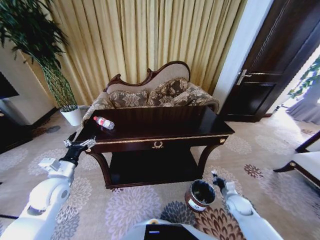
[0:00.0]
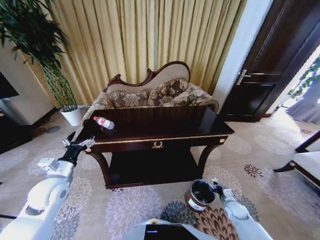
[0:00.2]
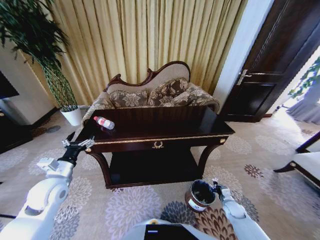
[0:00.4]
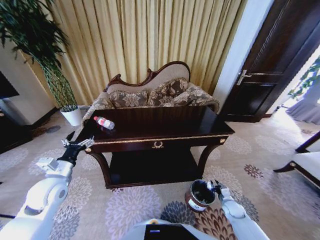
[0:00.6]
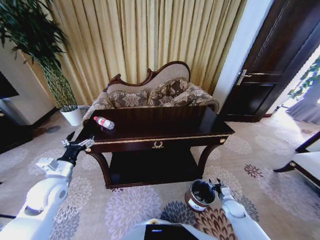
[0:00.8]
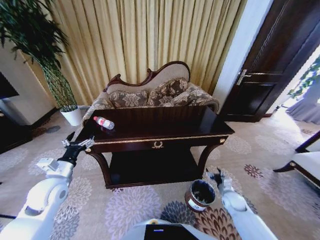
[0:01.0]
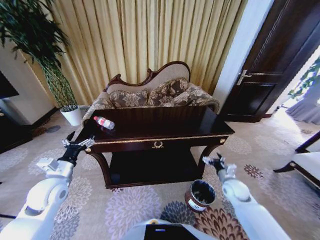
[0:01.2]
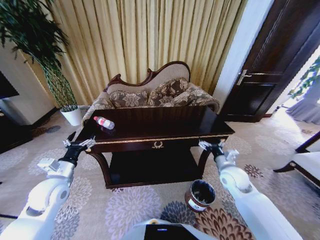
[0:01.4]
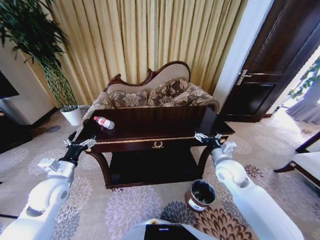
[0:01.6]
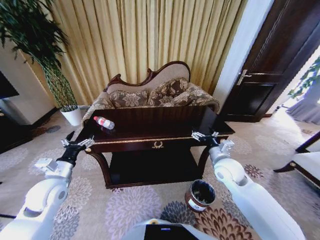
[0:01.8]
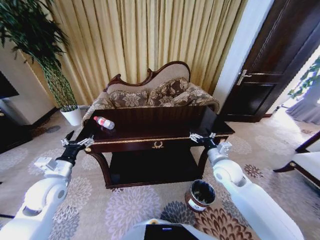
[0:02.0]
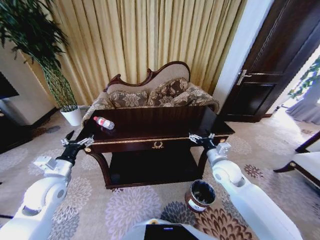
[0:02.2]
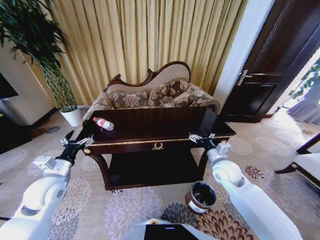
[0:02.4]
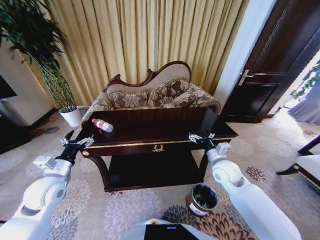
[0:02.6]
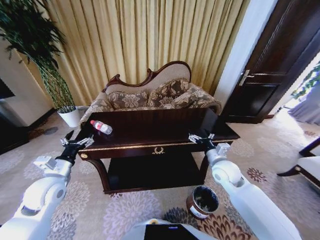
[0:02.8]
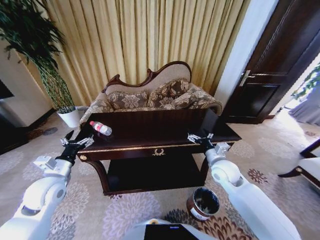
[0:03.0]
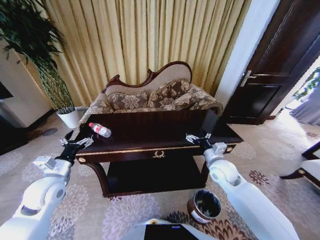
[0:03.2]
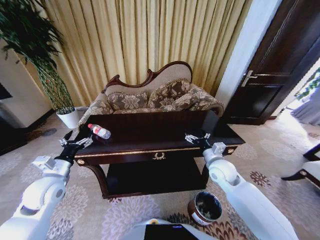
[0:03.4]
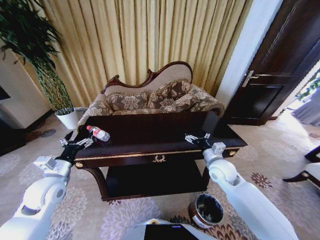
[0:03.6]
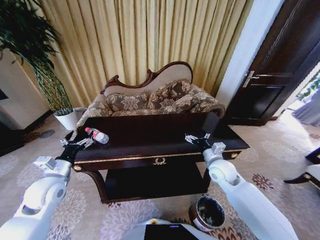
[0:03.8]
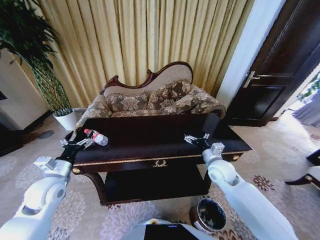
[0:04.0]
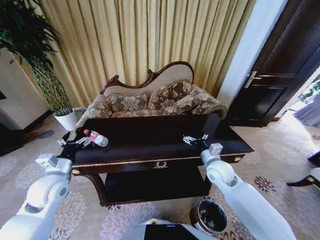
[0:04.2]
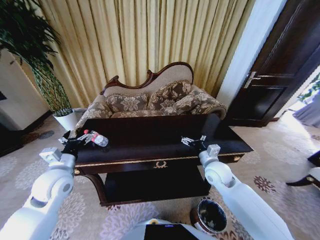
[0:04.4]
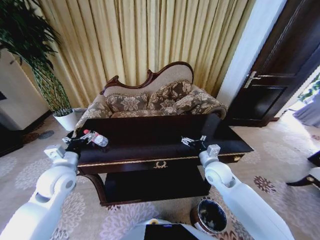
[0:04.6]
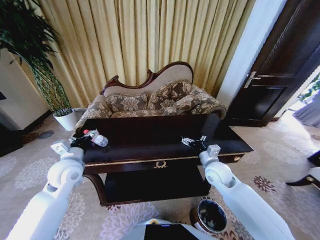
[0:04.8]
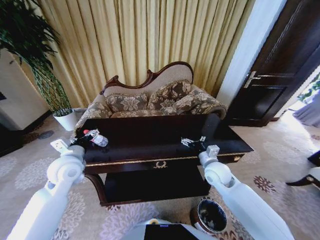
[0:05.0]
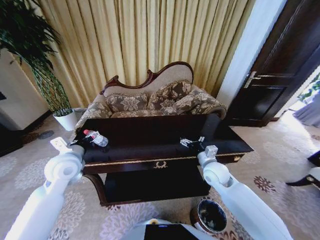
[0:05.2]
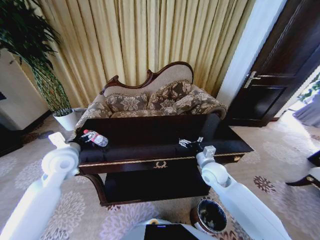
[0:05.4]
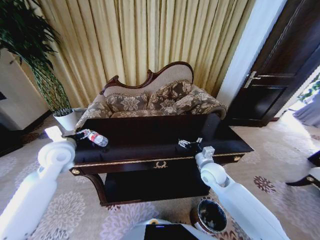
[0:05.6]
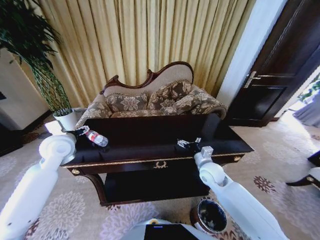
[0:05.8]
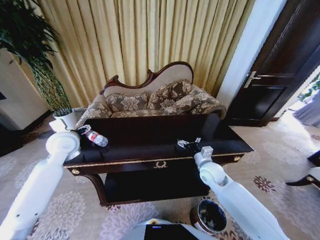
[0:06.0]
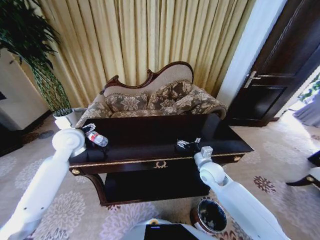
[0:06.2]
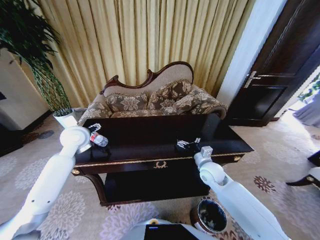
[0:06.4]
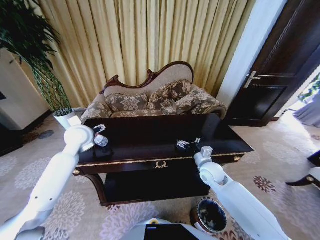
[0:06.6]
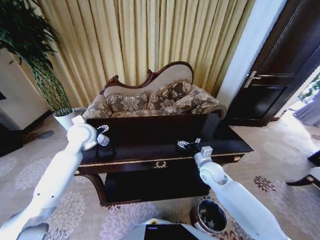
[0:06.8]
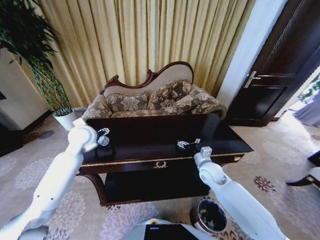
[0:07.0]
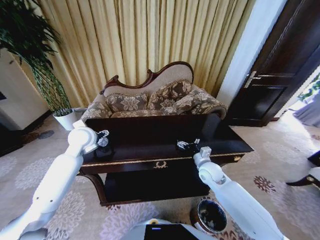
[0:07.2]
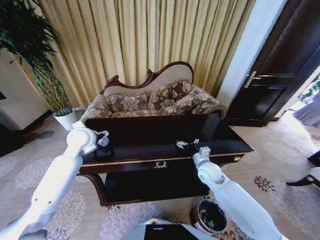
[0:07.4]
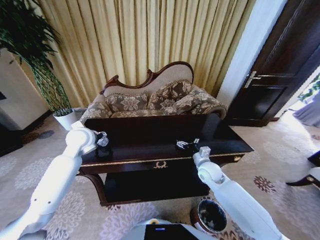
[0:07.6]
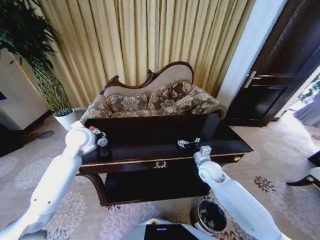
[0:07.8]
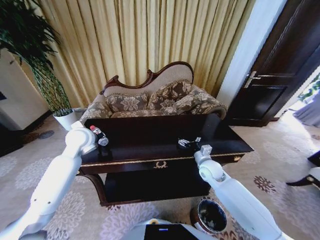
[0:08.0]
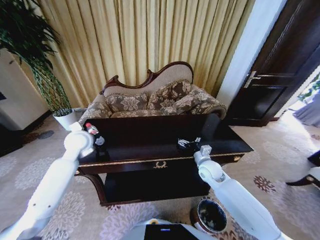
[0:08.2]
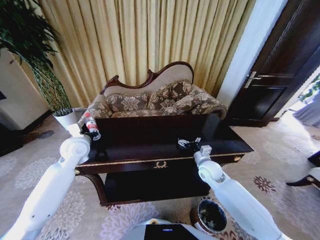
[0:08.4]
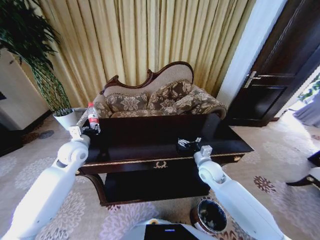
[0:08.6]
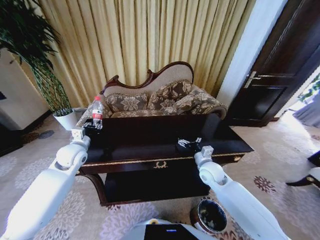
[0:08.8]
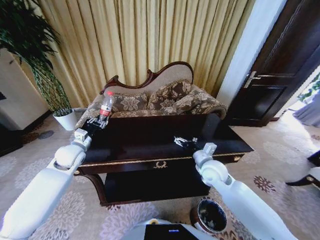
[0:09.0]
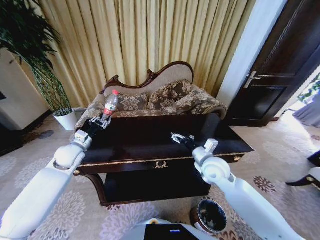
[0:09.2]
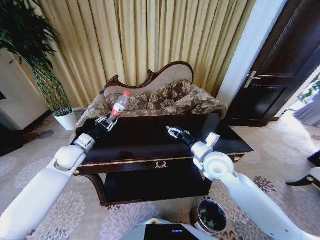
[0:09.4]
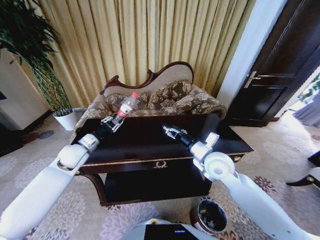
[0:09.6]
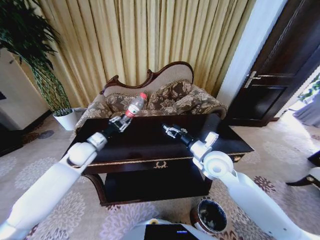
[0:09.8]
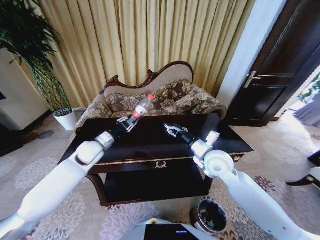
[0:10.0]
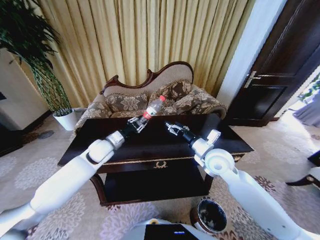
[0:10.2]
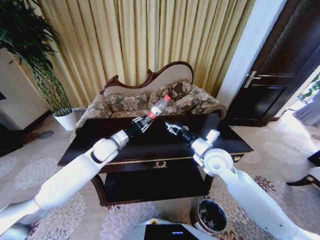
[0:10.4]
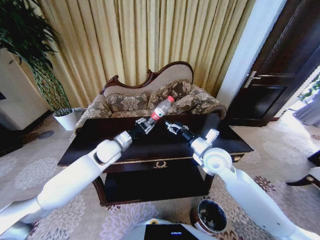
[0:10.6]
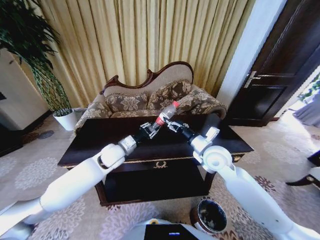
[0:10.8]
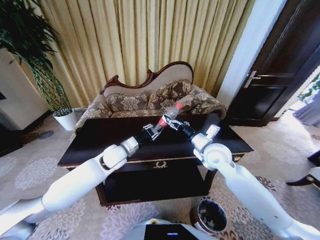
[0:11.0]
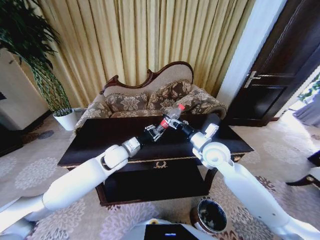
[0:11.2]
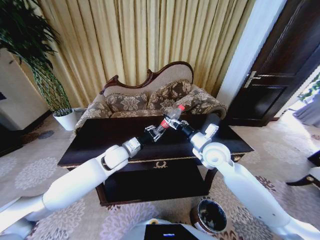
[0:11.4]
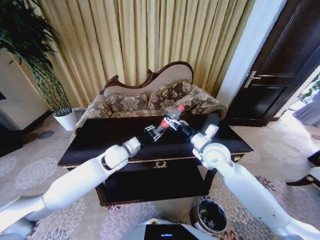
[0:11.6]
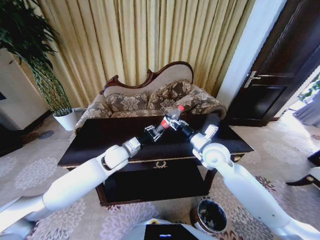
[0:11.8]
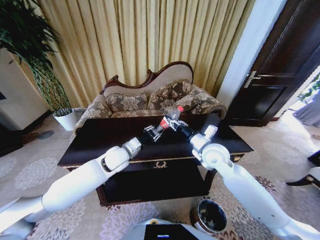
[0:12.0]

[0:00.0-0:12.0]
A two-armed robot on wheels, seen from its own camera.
Task of the whole recording: Move to the front of the table and place the trash on the table into the trash bin.
0:00.0 to 0:01.6: The right gripper travels upward and to the left by some 30 cm, and opens.
0:04.4 to 0:06.0: The left gripper shifts some 15 cm forward and upward.
0:06.0 to 0:07.6: The left gripper ends up some 5 cm from where it was.
0:07.6 to 0:09.0: The left gripper travels downward and to the left by approximately 10 cm, and closes; the right gripper travels upward by roughly 5 cm.
0:09.0 to 0:10.4: The right gripper heads upward, covering approximately 5 cm, while the left gripper travels to the right by approximately 15 cm.
0:10.4 to 0:12.0: The left gripper moves to the right, roughly 5 cm. Meanwhile the right gripper closes up.

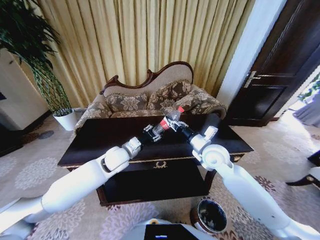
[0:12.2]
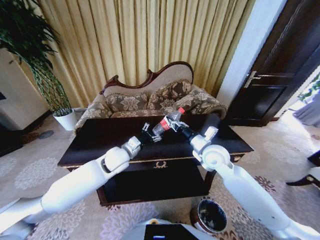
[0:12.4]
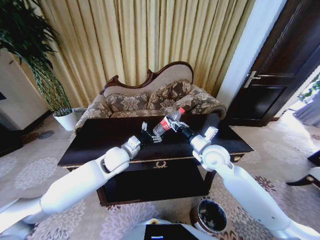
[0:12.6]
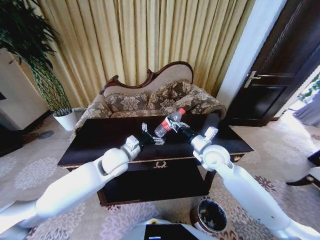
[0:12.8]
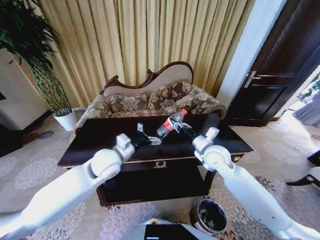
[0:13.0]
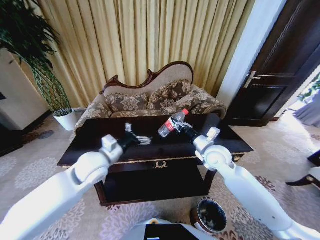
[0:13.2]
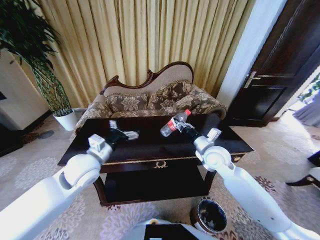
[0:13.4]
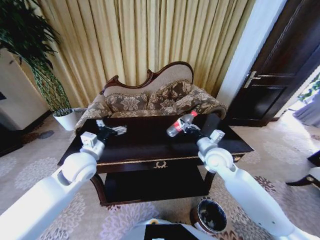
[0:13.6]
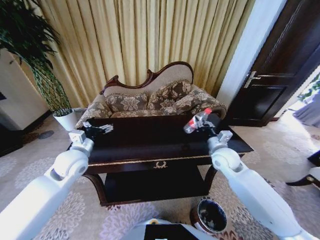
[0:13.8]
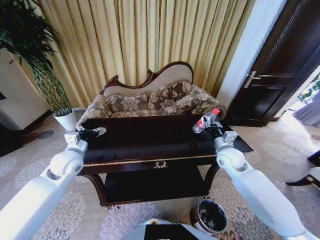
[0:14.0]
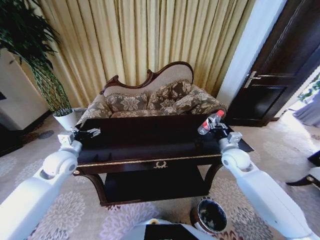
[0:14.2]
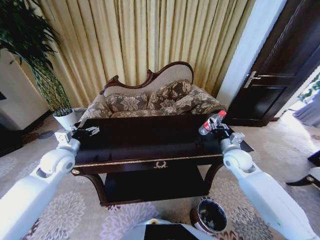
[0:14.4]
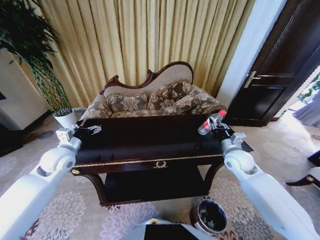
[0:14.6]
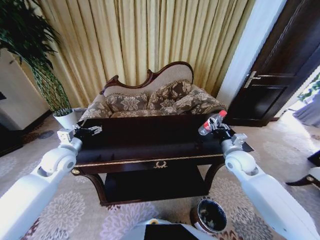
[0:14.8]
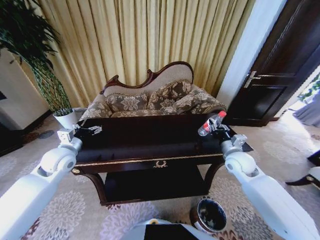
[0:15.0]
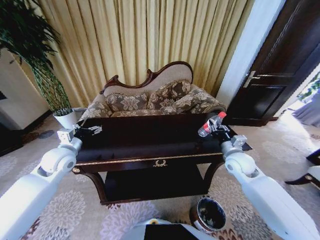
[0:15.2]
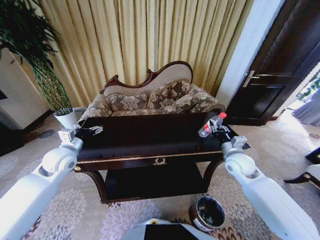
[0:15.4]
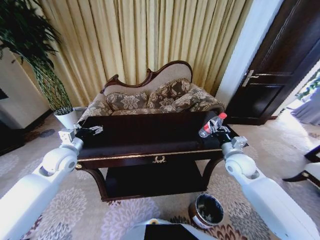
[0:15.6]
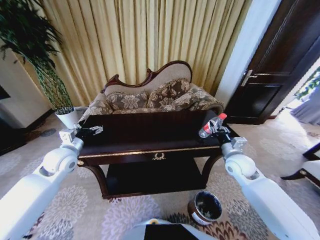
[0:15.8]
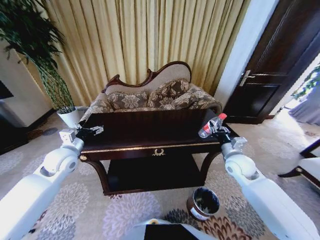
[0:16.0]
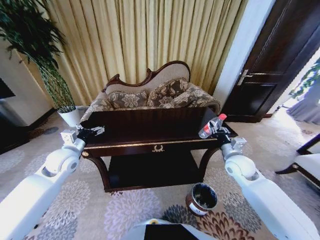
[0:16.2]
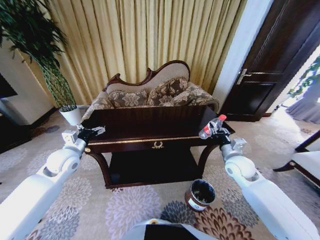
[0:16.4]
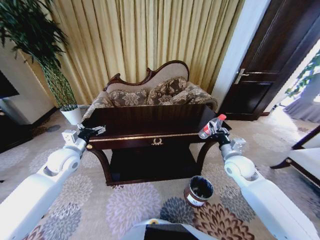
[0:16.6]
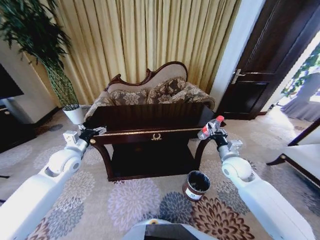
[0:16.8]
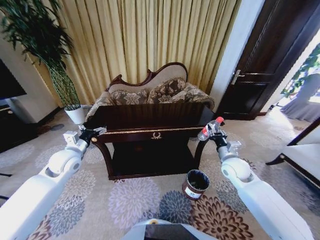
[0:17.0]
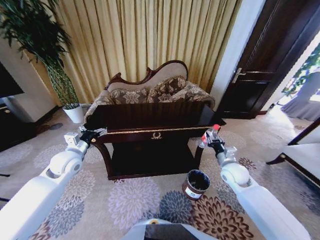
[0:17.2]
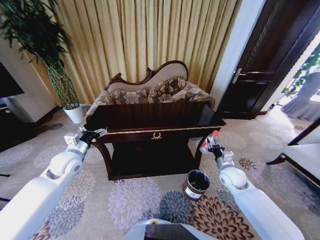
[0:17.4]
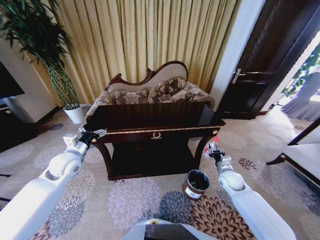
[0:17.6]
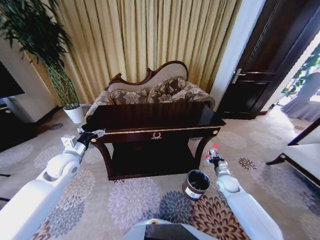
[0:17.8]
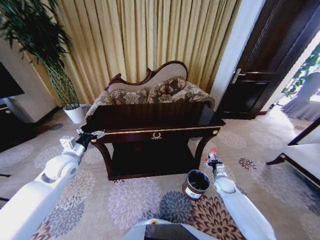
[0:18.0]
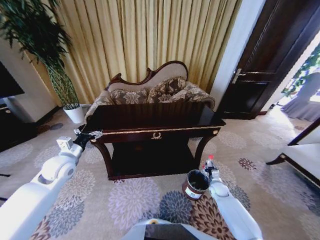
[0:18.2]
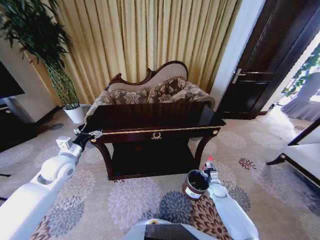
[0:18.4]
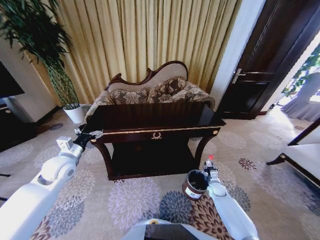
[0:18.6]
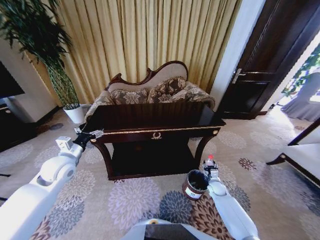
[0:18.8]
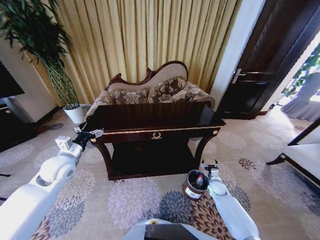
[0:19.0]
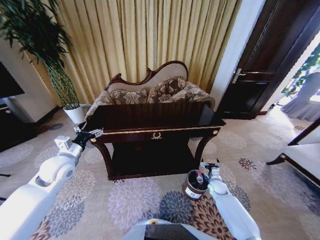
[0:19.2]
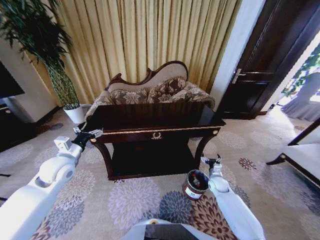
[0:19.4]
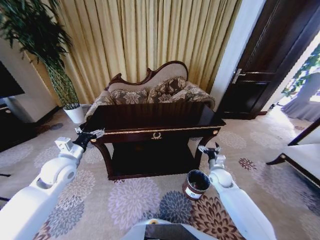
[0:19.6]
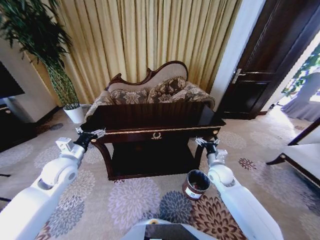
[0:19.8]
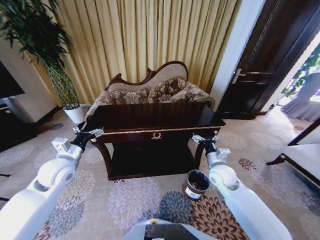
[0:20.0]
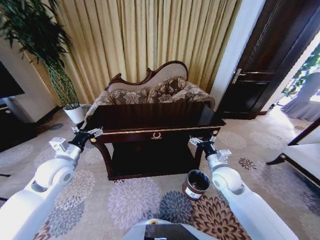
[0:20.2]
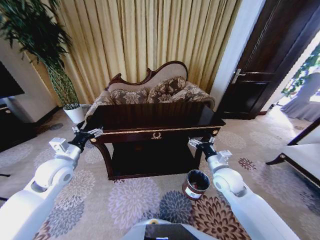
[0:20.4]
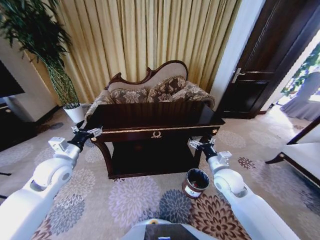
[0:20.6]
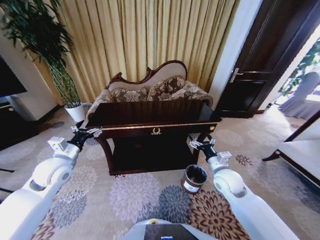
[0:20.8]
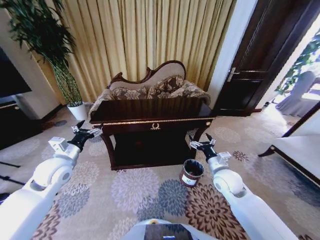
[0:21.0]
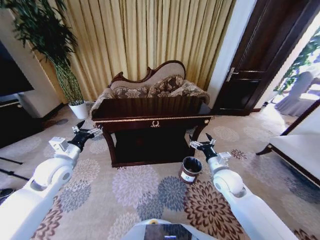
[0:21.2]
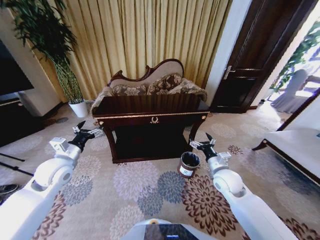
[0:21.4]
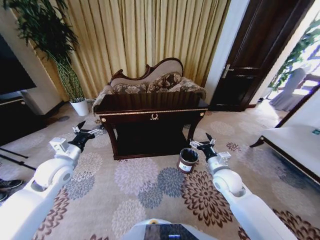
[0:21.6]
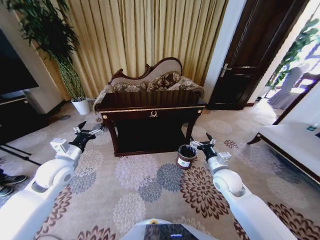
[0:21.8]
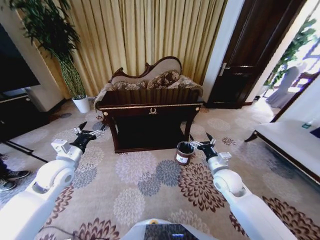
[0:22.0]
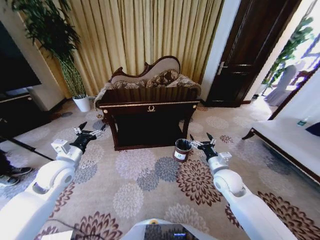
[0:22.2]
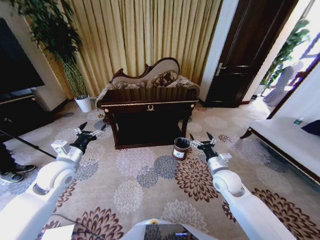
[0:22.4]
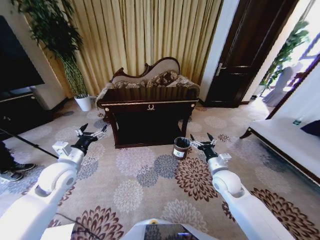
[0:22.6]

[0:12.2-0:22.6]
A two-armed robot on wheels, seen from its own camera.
Task of the whole recording: Move to the front of the table and place the trash on the table into the trash bin.
0:12.2 to 0:13.6: The left gripper travels to the left and backward by approximately 10 cm, and opens its fingers.
0:13.6 to 0:15.2: The right gripper goes roughly 10 cm to the right. The left gripper moves to the left, roughly 10 cm.
0:16.6 to 0:18.2: The right gripper shifts approximately 30 cm downward.
0:18.2 to 0:19.6: The right gripper moves upward, approximately 15 cm, and opens its fingers.
0:19.6 to 0:21.2: The right gripper moves upward, backward and to the left, approximately 15 cm.
